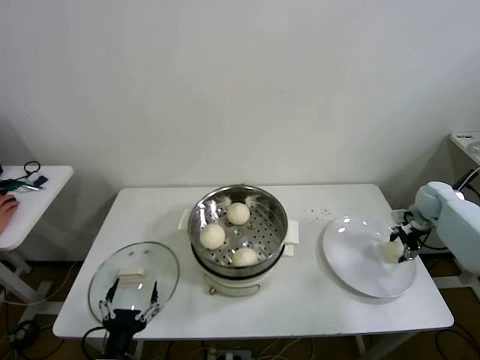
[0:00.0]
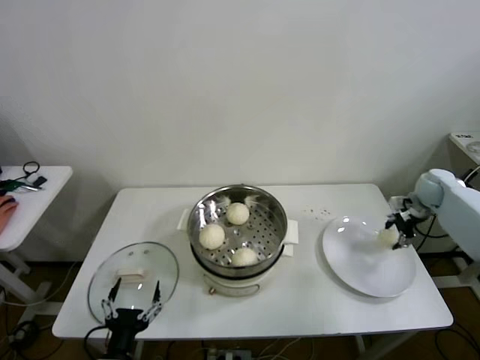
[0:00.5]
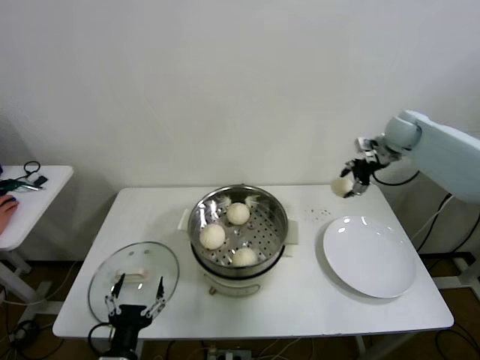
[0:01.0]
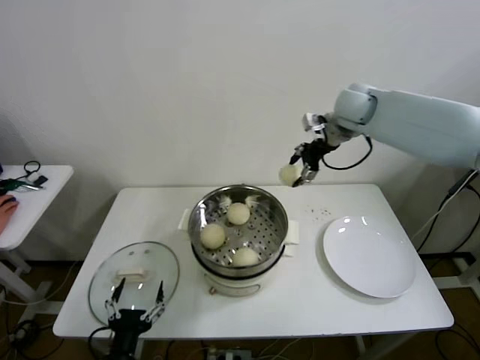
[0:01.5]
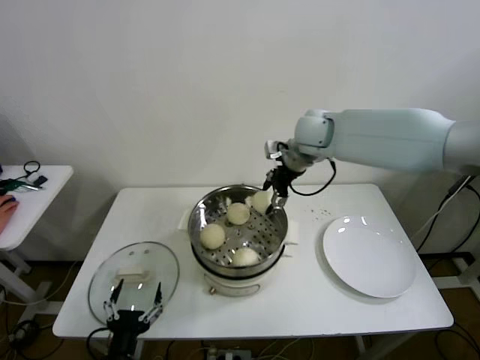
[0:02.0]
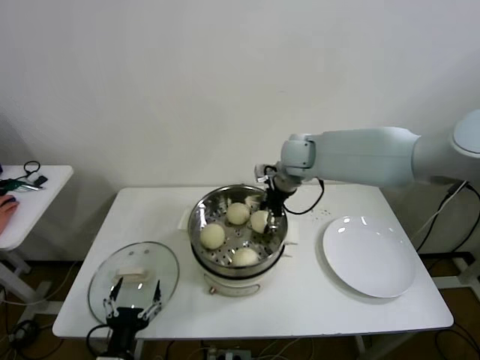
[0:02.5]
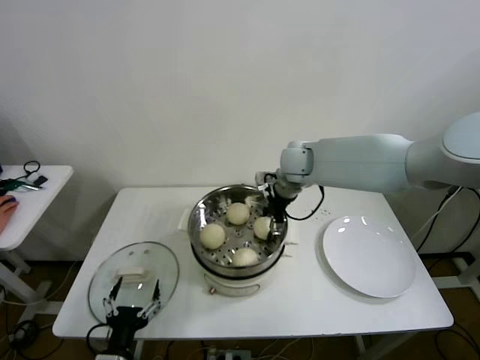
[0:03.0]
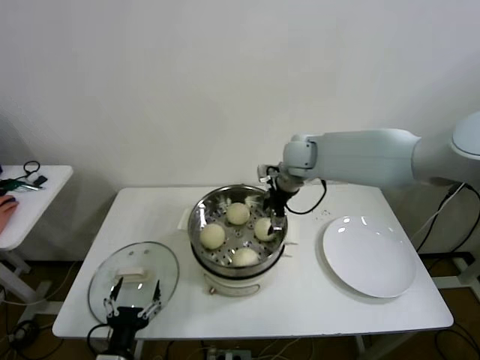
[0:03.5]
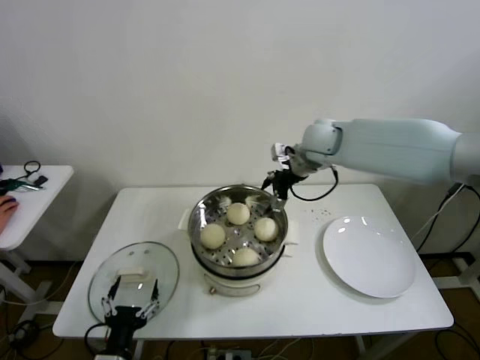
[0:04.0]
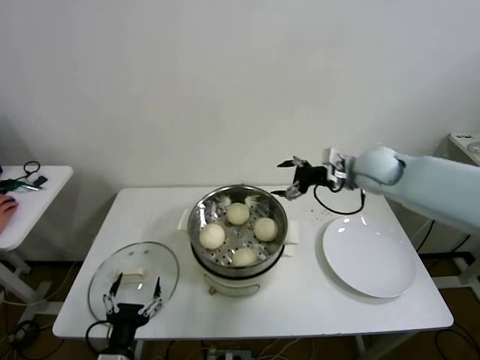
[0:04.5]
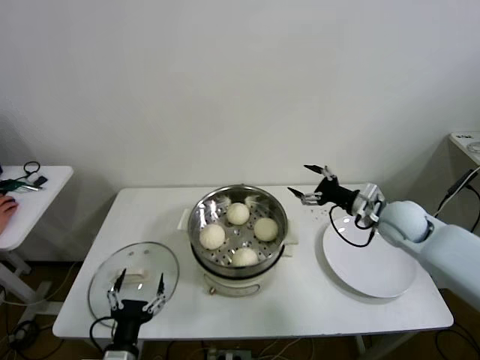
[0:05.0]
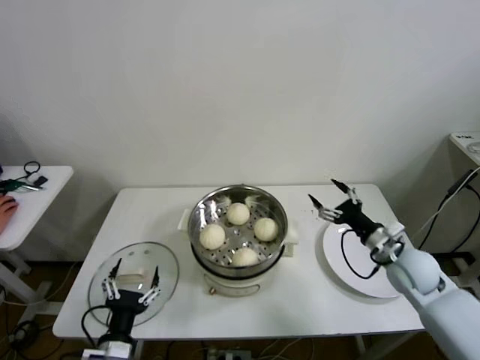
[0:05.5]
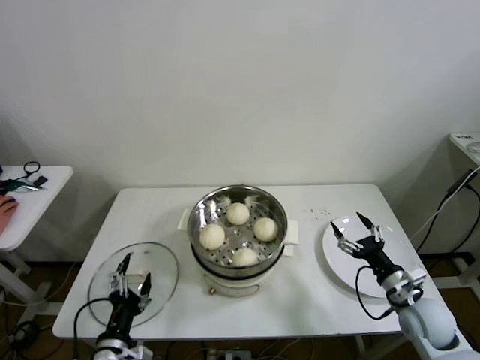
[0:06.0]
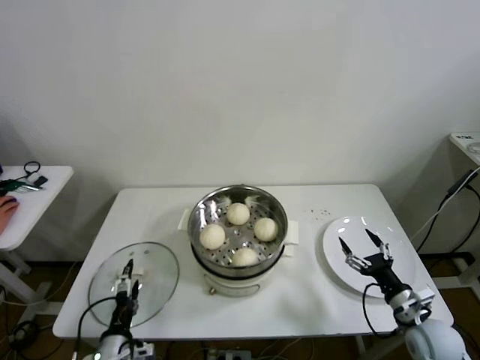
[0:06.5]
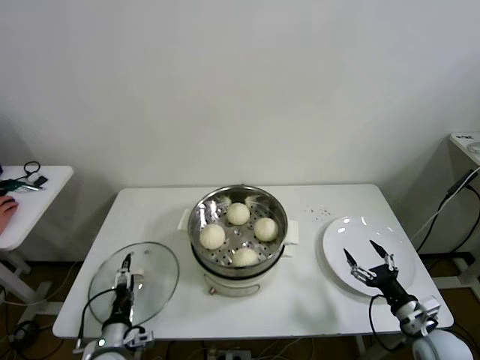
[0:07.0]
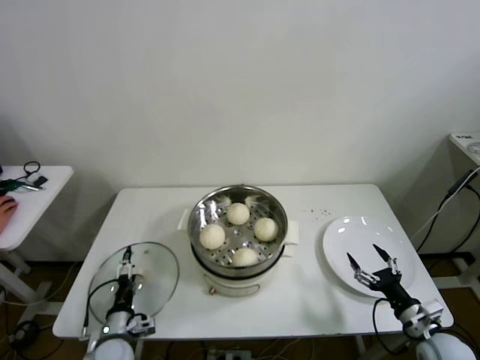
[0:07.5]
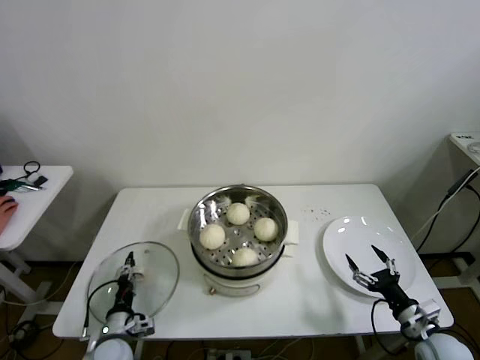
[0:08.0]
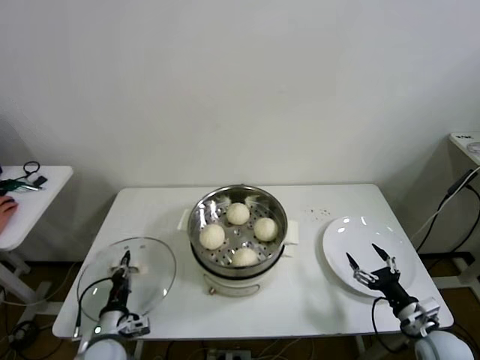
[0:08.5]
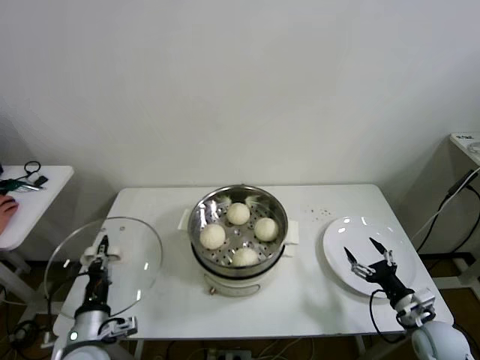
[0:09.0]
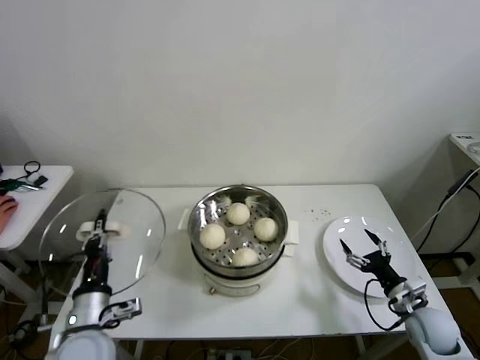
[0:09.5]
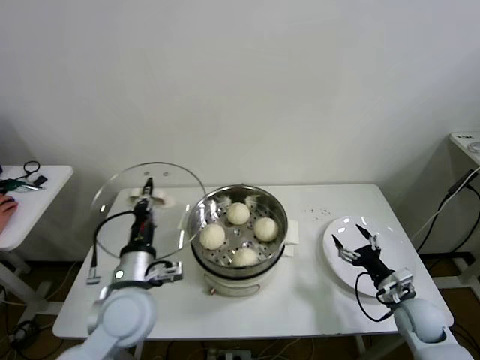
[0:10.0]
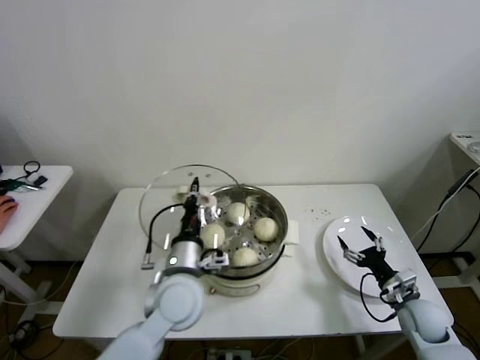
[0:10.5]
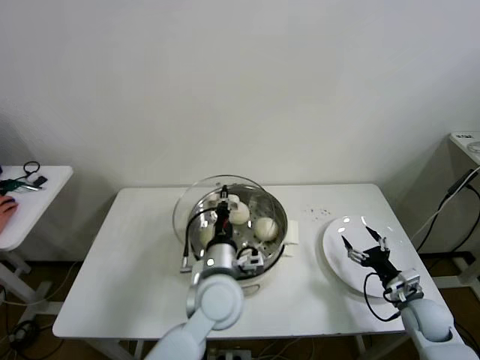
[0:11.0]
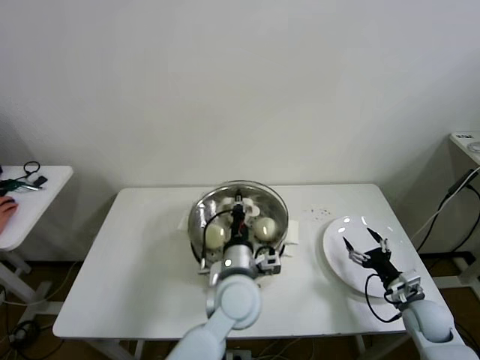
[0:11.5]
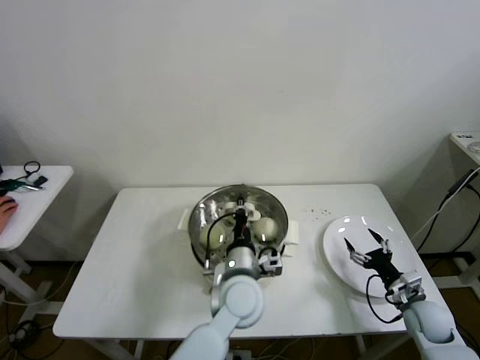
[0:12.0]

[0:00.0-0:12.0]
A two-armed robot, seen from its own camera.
Step, 0:00.5 to 0:03.0: Place the baozi on the steamer with right gripper.
Step, 0:03.5 to 0:08.0: Grasp the pot lid with left gripper.
0:00.0 to 0:02.0: The right gripper moves to the left and upward, some 40 cm.
0:02.0 to 0:04.0: The right gripper opens up.
0:04.0 to 0:06.0: The right gripper heads backward, downward and to the right, covering about 40 cm.
0:06.0 to 0:08.0: The right gripper moves backward and downward, about 10 cm, while the left gripper is displaced downward and forward by roughly 15 cm, and closes.
0:08.0 to 0:10.0: The right gripper heads forward, covering roughly 10 cm; the left gripper travels upward and to the right by roughly 25 cm, and closes its fingers.
0:10.0 to 0:12.0: The left gripper heads to the right, covering about 20 cm.

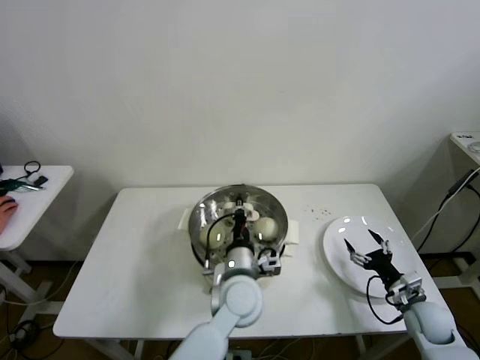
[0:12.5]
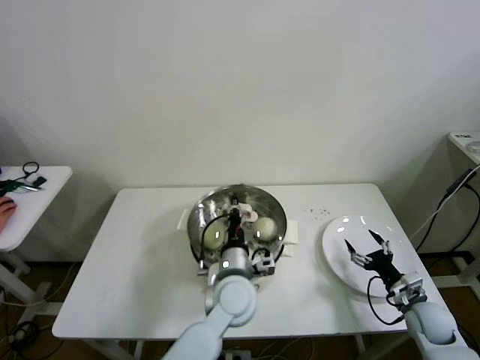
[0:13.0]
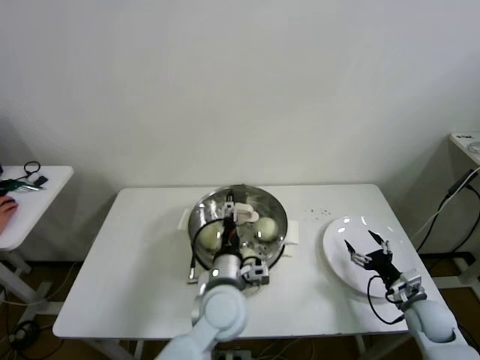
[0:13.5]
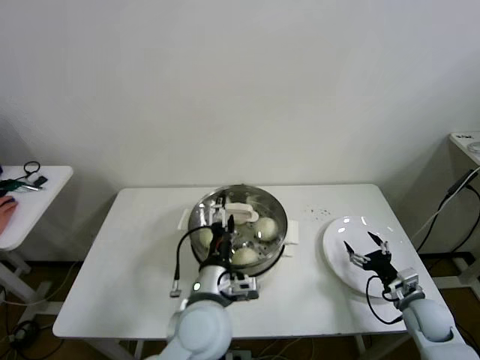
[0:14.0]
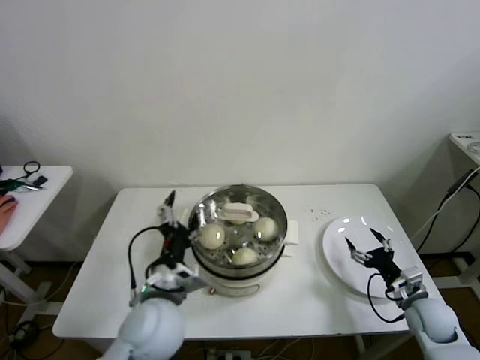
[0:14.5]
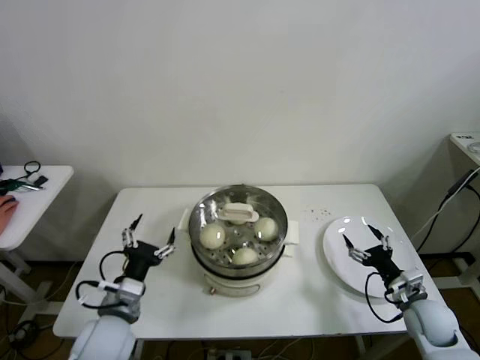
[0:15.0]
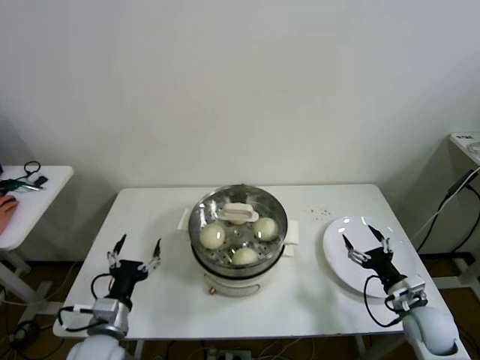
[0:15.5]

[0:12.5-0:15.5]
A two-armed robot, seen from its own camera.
0:12.5 to 0:14.0: The left gripper is displaced backward and to the left by approximately 10 cm, and opens.
0:14.0 to 0:15.5: The left gripper heads to the left, covering approximately 20 cm.
